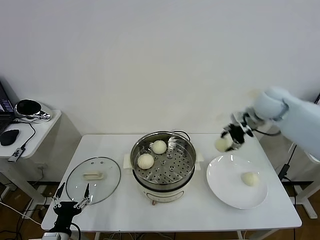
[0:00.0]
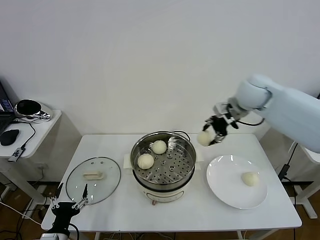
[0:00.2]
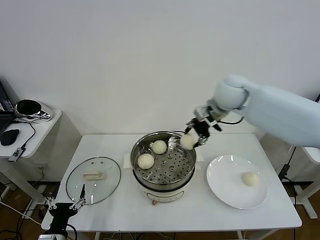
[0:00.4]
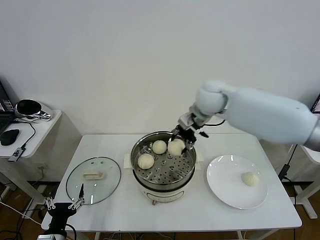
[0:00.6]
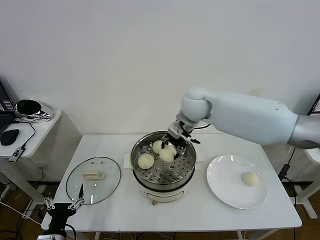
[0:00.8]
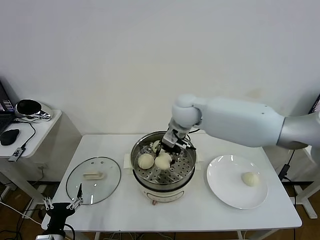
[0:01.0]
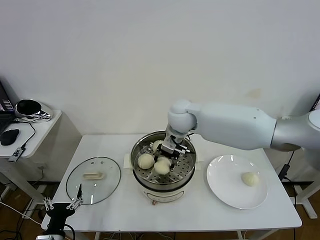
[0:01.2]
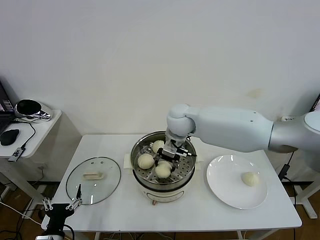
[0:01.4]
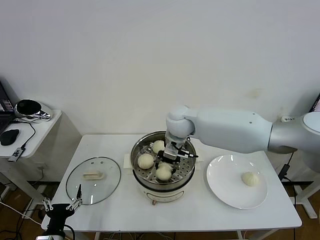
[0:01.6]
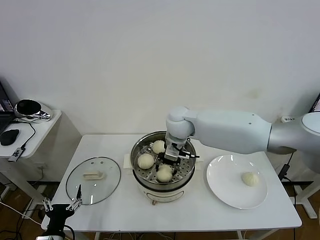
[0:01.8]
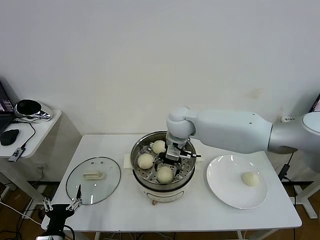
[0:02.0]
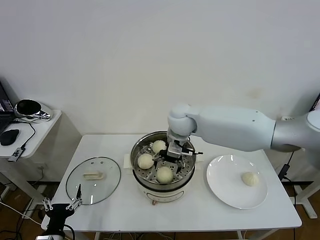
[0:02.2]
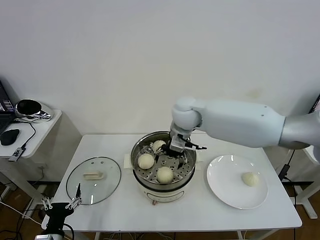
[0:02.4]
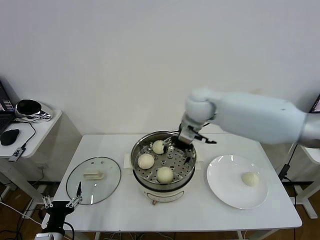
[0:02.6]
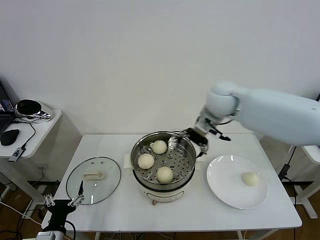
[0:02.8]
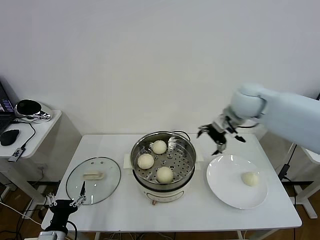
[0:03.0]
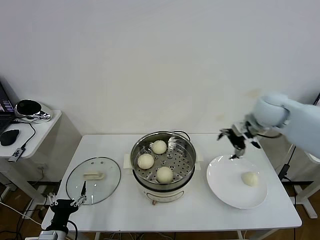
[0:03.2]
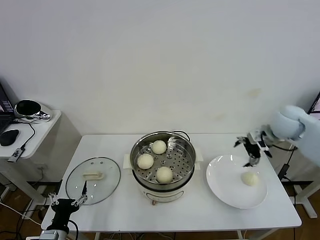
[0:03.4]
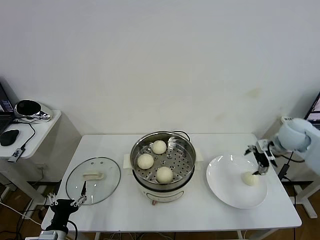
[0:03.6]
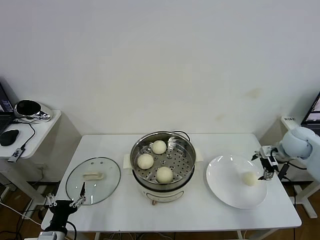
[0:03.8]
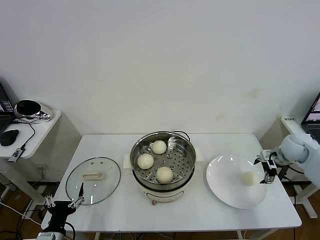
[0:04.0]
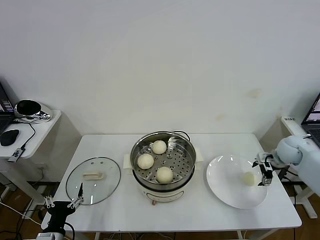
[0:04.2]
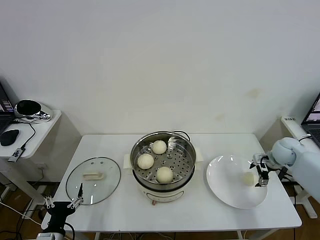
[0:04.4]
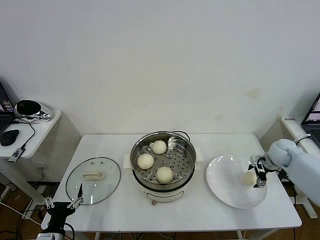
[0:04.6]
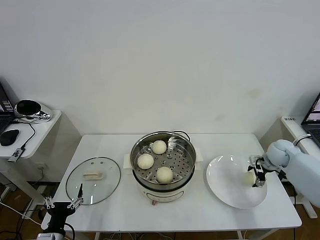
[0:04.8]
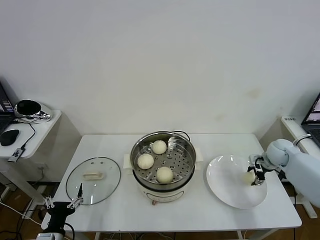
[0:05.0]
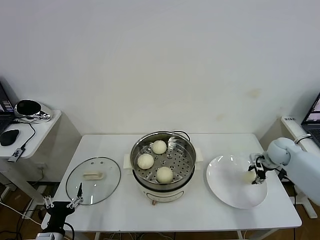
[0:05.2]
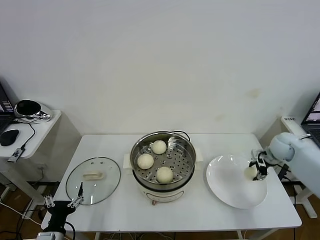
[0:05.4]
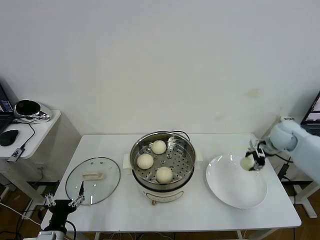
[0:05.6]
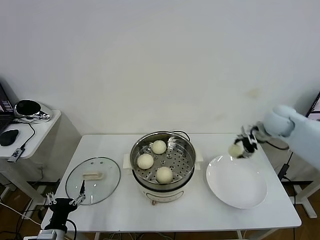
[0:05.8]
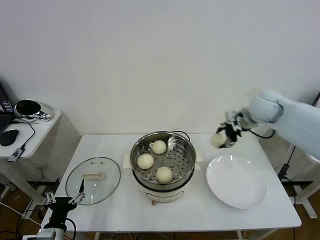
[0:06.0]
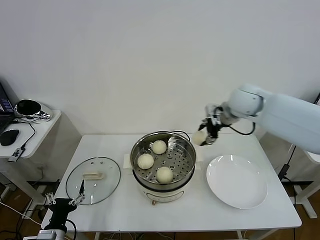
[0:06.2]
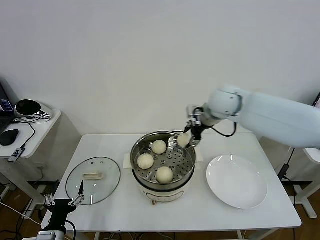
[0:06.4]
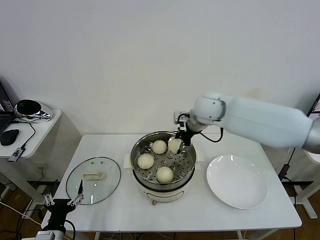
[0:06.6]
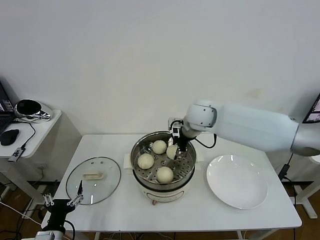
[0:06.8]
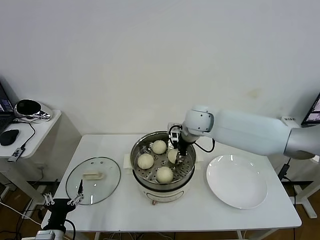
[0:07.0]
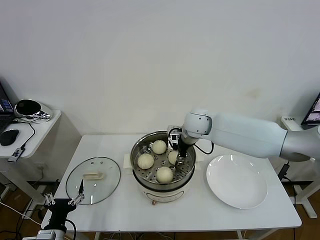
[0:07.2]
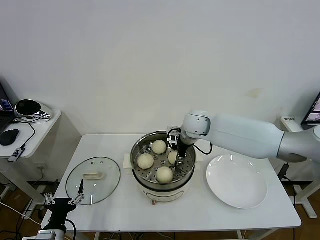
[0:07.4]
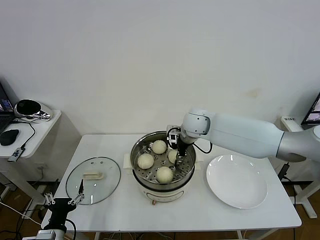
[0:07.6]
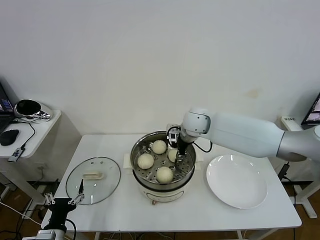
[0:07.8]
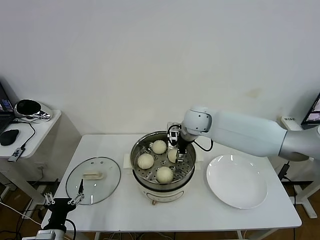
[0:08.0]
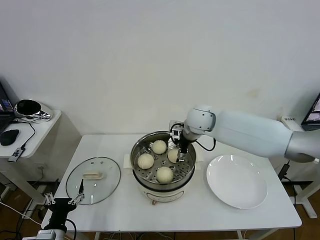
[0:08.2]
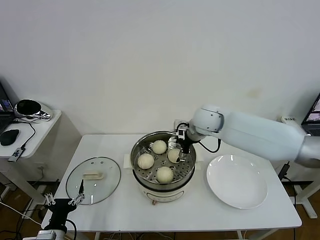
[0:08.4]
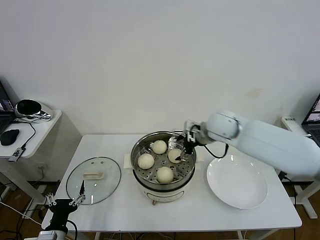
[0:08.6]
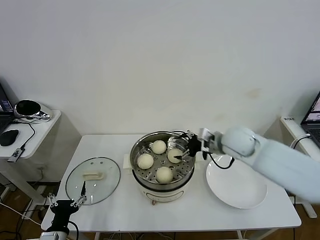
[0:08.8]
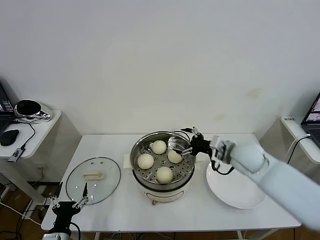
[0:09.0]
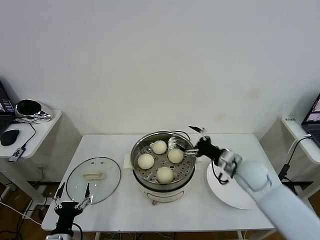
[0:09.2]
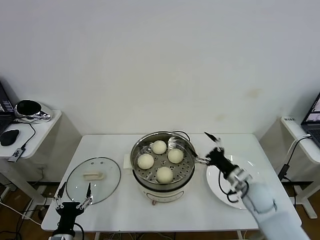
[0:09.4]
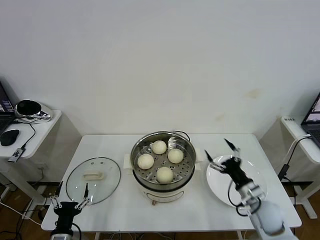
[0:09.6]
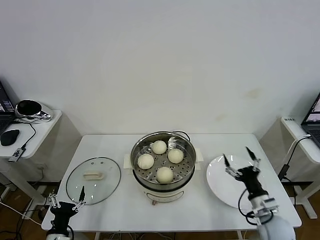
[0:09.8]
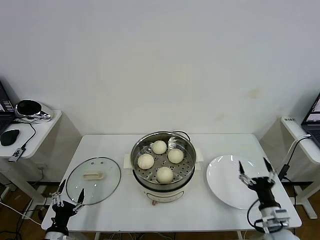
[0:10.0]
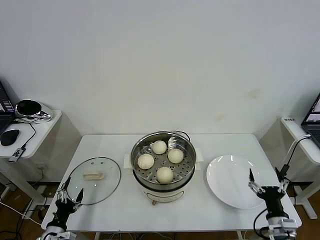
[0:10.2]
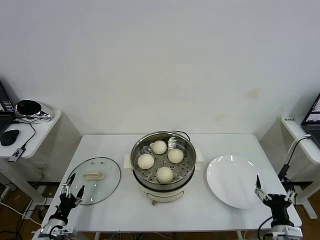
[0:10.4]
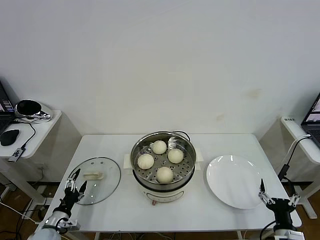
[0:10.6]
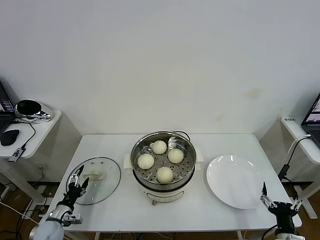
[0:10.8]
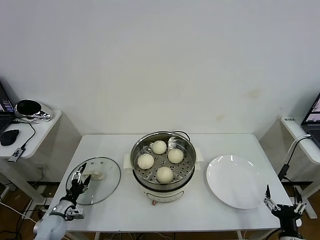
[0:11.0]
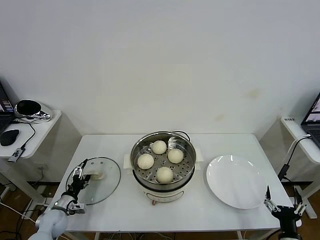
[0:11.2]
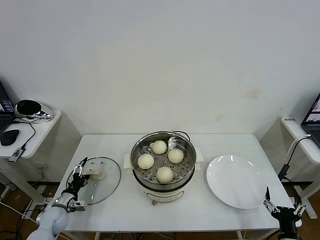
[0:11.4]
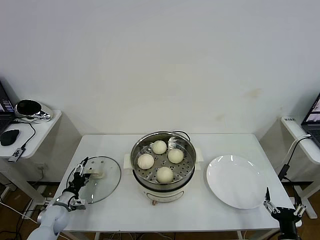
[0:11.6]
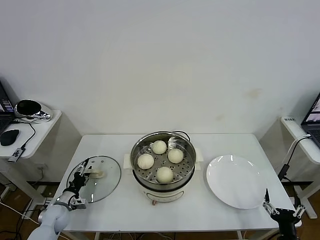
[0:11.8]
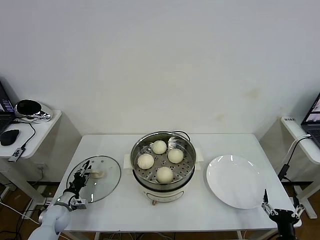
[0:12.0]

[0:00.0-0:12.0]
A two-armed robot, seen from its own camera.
Task of the whole recording: take steamed baozi put them in steamer then cover it.
Step, 0:00.0 to 0:02.2: Place the baozi on the steamer with right gripper.
Step, 0:02.4 to 0:05.0: Grasp the baozi in the plate with right gripper.
Step, 0:05.4 to 0:08.0: Place the baozi on the steamer with right gripper.
0:00.0 to 0:01.6: The right gripper moves to the left, some 25 cm.
0:01.6 to 0:03.0: The right gripper moves to the right, some 20 cm, and opens its fingers.
0:03.0 to 0:04.4: The right gripper moves downward and to the right, some 30 cm.
0:04.4 to 0:06.0: The right gripper goes about 25 cm upward and to the left, and closes up.
0:06.0 to 0:07.6: The right gripper shifts approximately 20 cm to the left and downward.
0:07.6 to 0:09.0: The right gripper is displaced to the right and backward by approximately 20 cm, and opens.
0:09.0 to 0:10.4: The left gripper heads to the left, forward and downward, covering some 10 cm, while the right gripper moves backward, downward and to the right, approximately 35 cm.
0:10.4 to 0:12.0: The left gripper moves forward, some 10 cm, and closes its fingers.

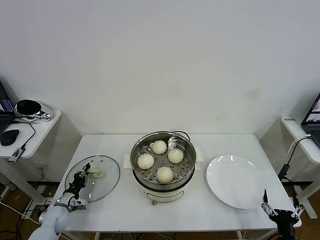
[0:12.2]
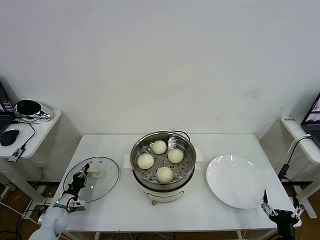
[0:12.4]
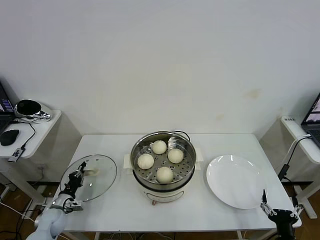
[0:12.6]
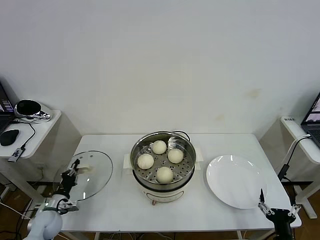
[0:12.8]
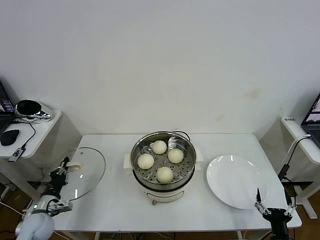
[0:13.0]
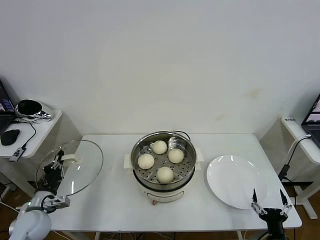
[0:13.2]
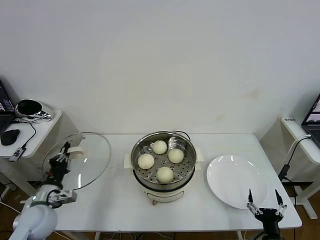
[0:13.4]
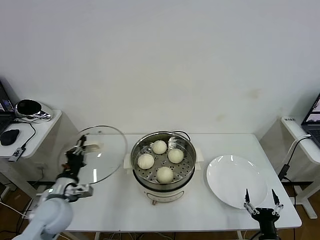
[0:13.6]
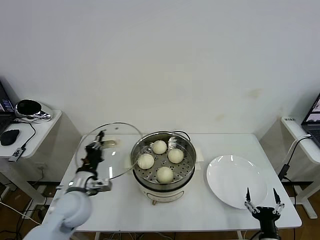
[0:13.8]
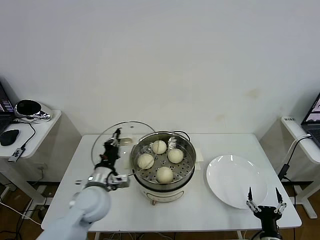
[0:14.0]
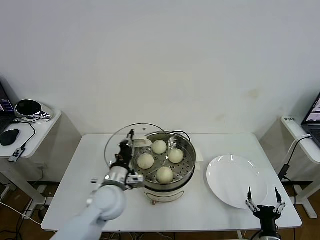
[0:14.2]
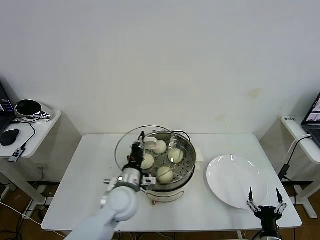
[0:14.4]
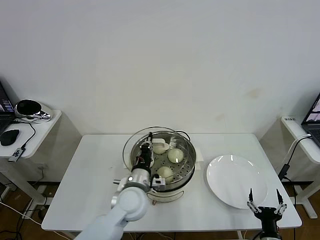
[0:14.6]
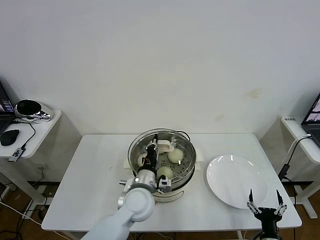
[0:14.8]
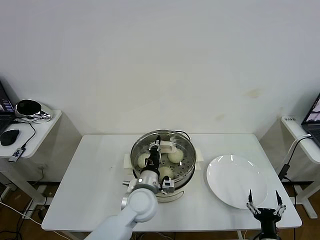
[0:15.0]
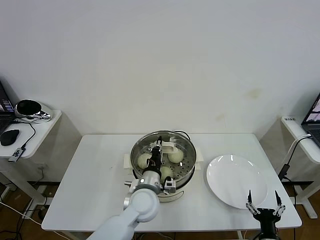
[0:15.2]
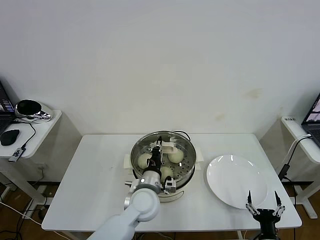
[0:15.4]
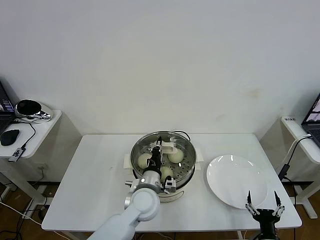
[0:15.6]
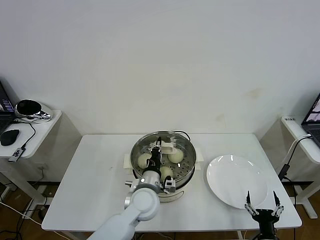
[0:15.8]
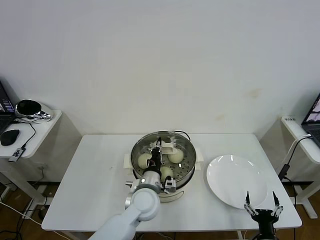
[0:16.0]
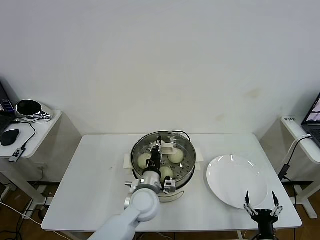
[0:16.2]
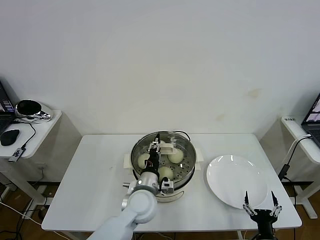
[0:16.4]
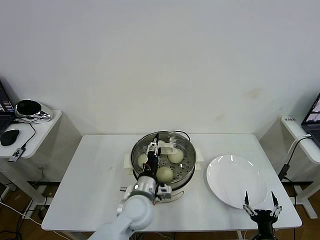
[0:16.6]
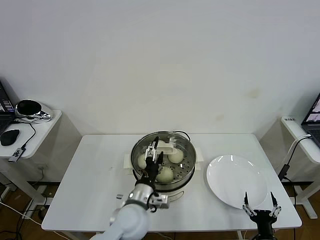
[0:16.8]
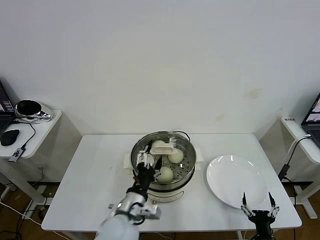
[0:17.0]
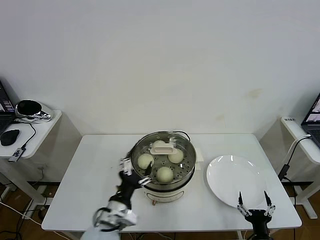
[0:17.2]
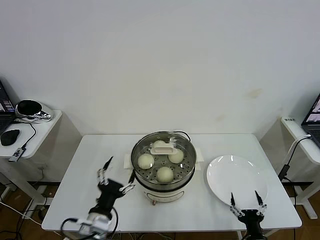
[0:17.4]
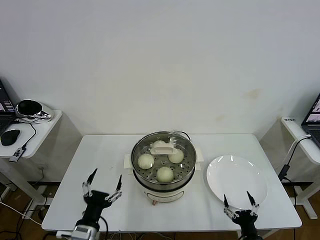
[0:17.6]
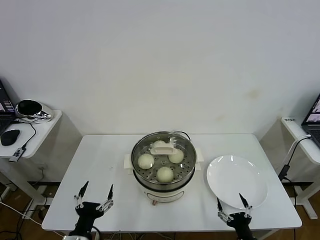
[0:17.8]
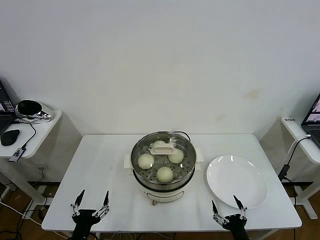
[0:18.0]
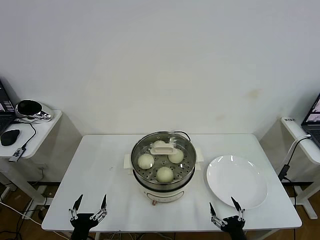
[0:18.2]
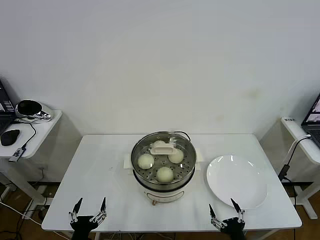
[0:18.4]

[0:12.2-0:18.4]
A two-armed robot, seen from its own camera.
Task of the whole recording: take steamed baozi put them in steamer then cover it.
Step, 0:12.6 to 0:16.6: Place the pot lid on the steamer with left gripper.
0:12.2 to 0:13.8: The left gripper goes roughly 25 cm upward and to the right.
0:13.8 to 0:15.4: The left gripper moves to the right, approximately 20 cm.
0:15.4 to 0:16.8: The left gripper ends up roughly 5 cm from where it was, and opens up.
0:16.8 to 0:18.4: The right gripper travels to the left by some 5 cm, while the left gripper shifts some 25 cm to the left, backward and downward.

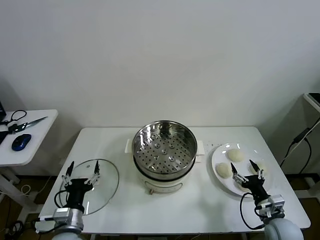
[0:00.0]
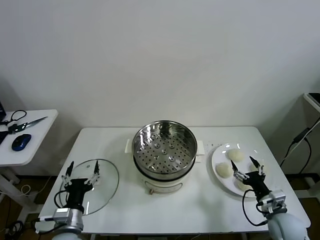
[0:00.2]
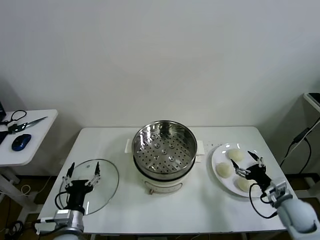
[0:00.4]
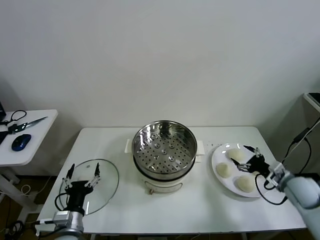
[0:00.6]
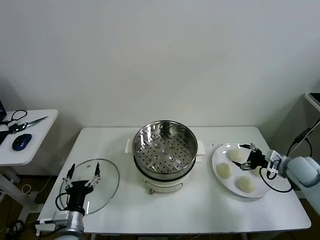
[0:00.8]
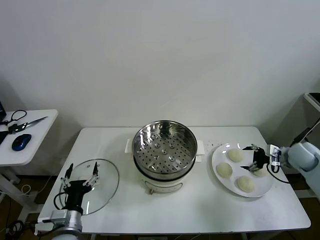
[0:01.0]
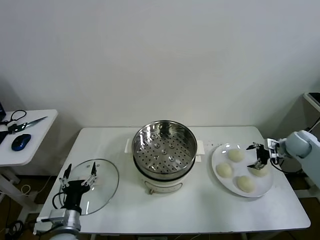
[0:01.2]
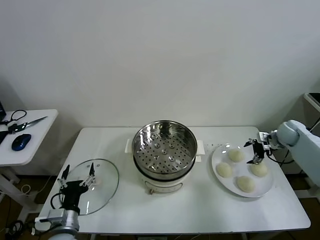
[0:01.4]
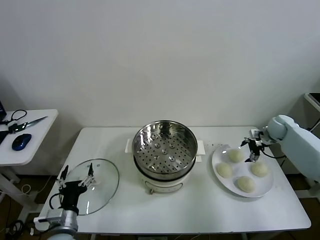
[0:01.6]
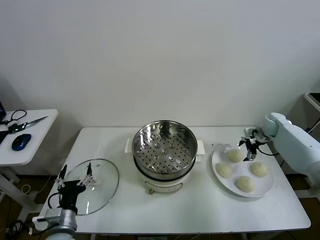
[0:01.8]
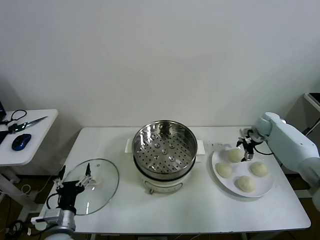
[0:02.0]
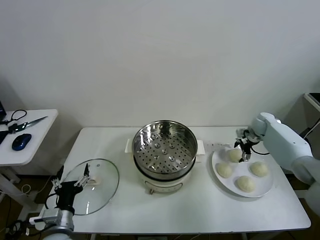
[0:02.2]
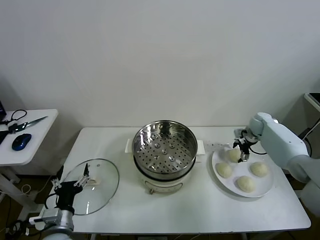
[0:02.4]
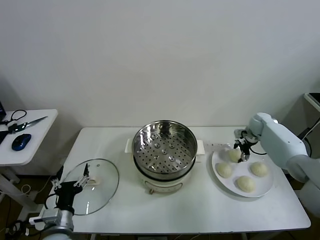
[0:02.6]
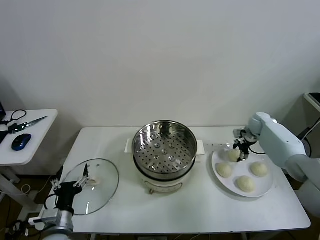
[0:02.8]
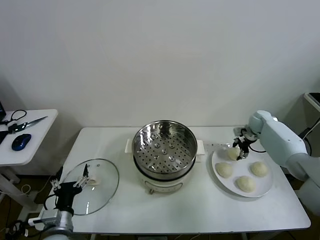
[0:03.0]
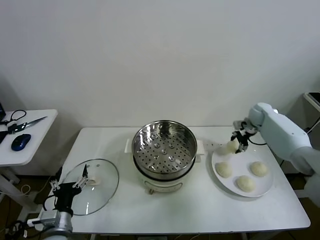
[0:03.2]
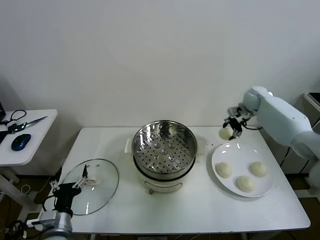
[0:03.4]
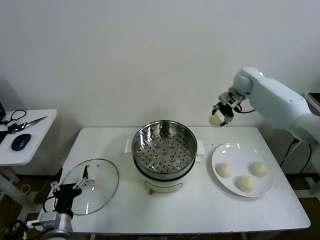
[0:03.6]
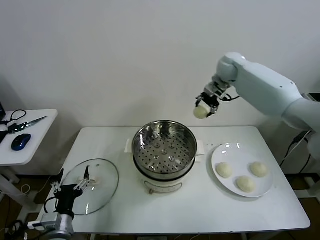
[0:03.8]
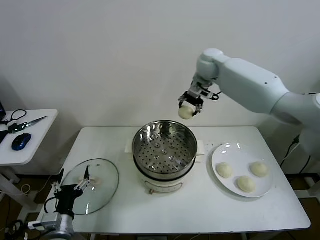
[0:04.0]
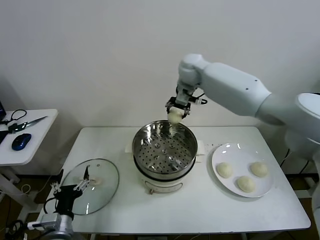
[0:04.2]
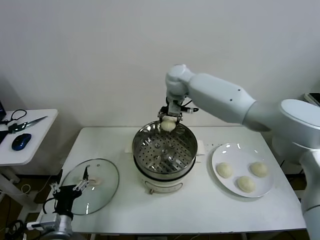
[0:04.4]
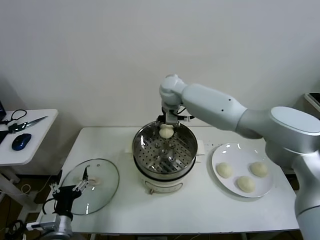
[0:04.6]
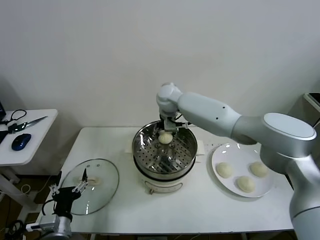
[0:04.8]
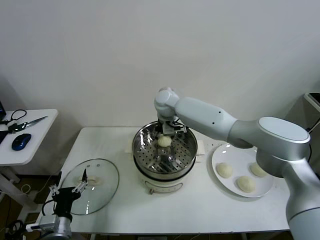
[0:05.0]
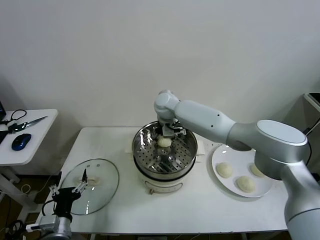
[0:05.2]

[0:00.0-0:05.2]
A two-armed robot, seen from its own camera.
Task of the whole recording: take steamed baozi put them in steamer then cover it.
Step, 0:00.0 to 0:02.8: Grasp the baozi in the plate with right gripper.
0:01.8 to 0:03.4: The right gripper moves upward, to the left and forward, roughly 20 cm, and closes up.
0:03.4 to 0:05.2: The right gripper goes approximately 35 cm to the left, and opens up.
